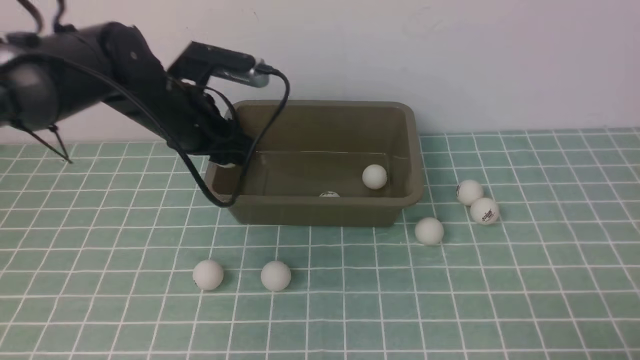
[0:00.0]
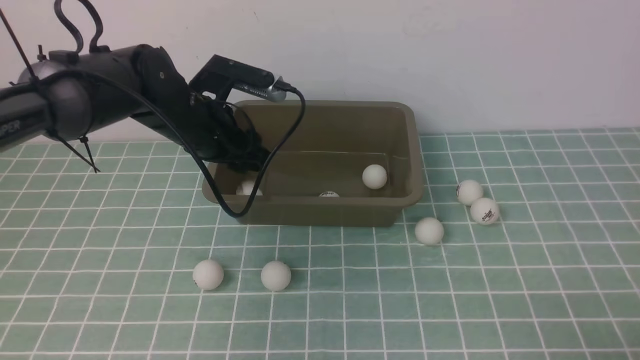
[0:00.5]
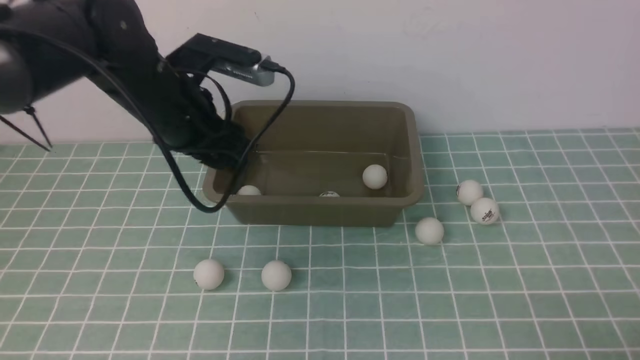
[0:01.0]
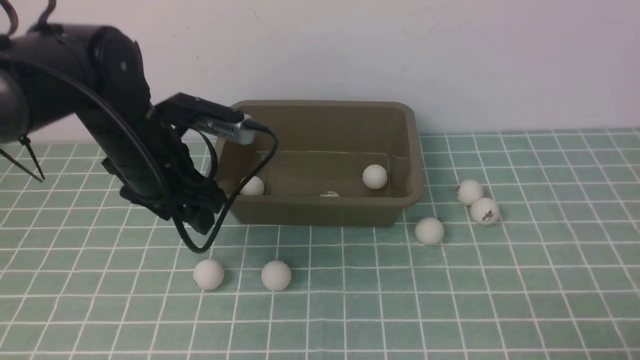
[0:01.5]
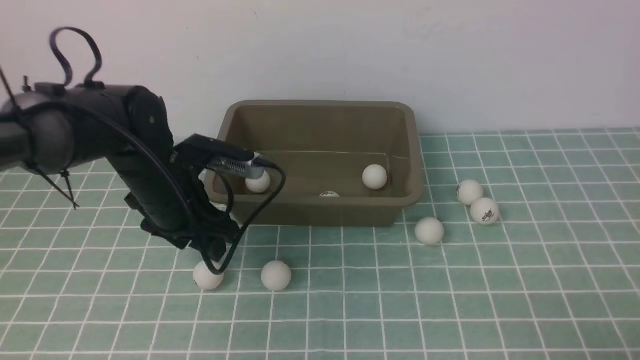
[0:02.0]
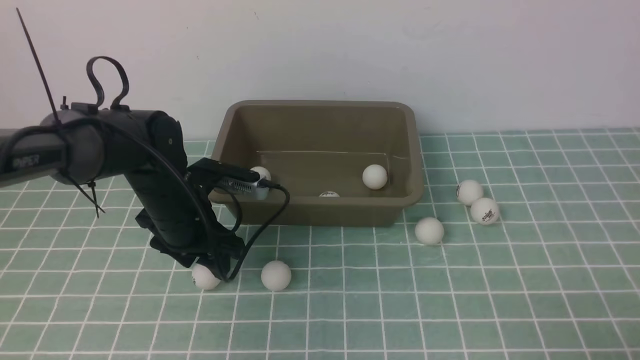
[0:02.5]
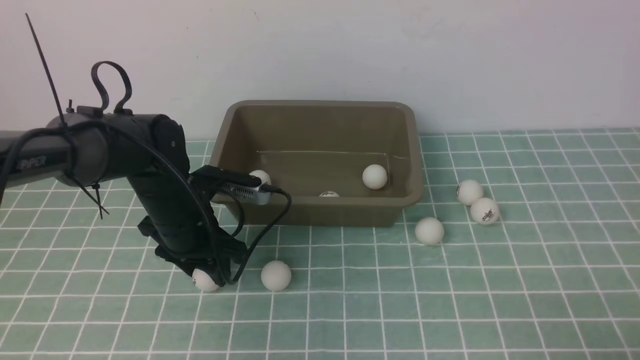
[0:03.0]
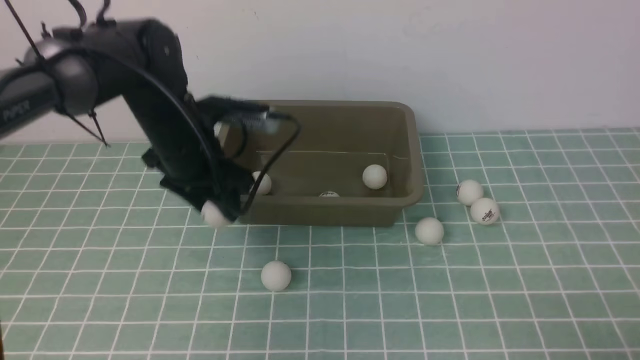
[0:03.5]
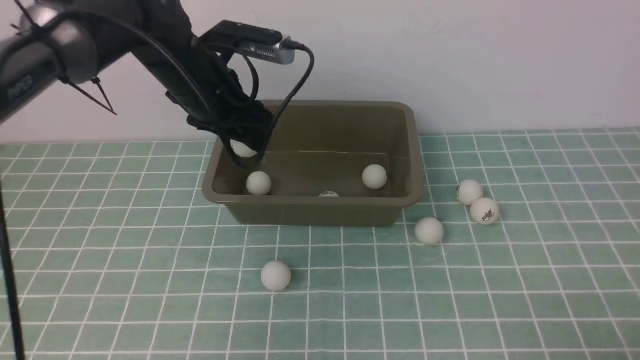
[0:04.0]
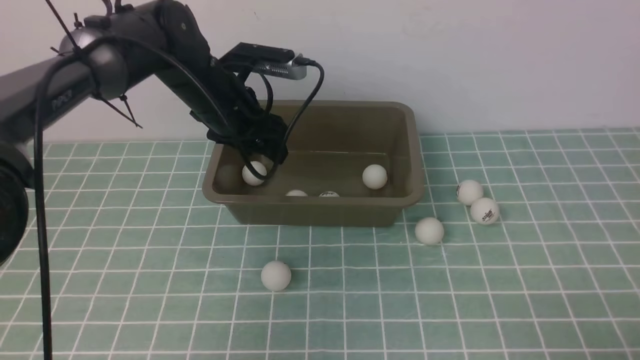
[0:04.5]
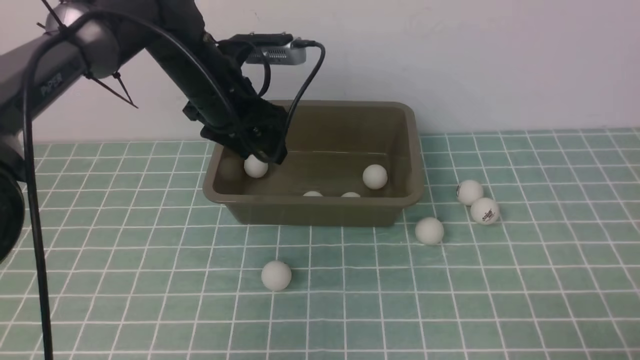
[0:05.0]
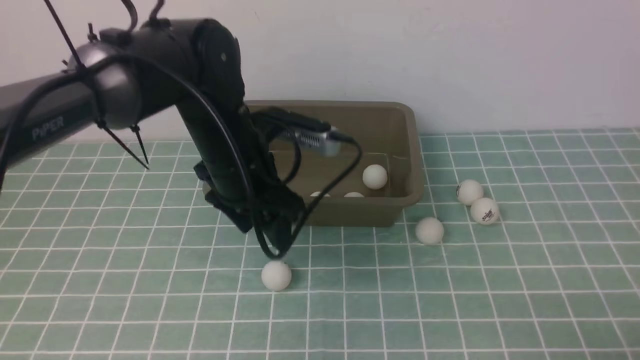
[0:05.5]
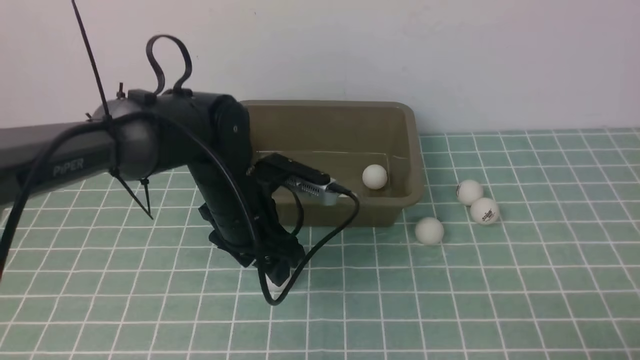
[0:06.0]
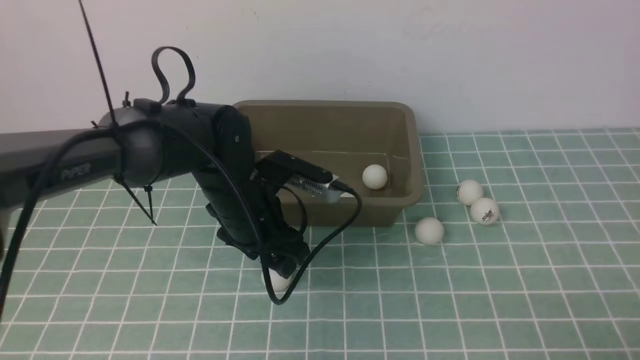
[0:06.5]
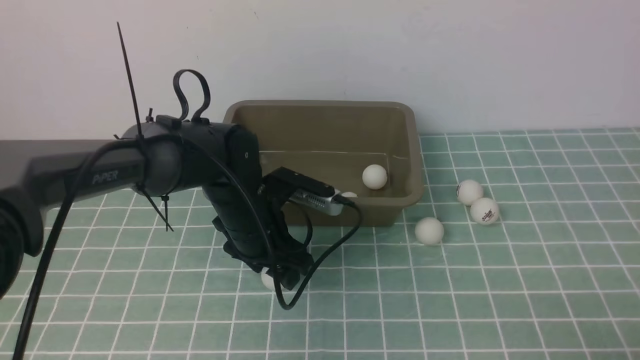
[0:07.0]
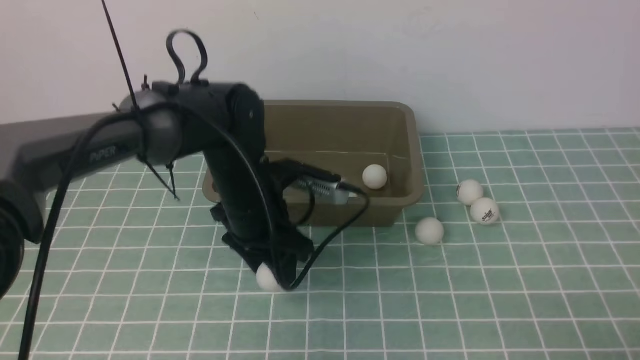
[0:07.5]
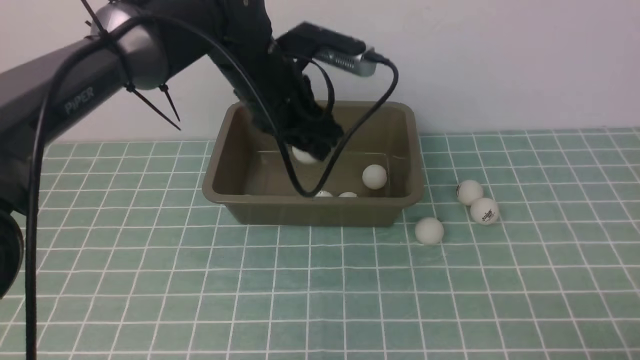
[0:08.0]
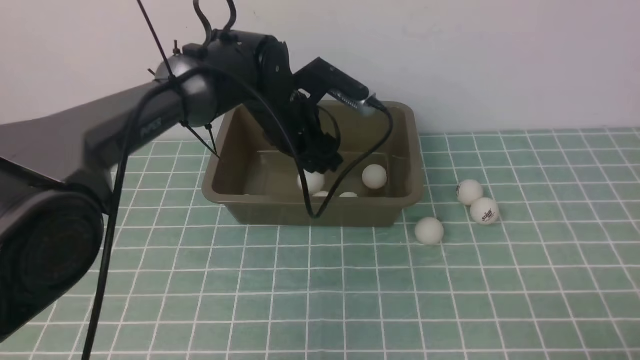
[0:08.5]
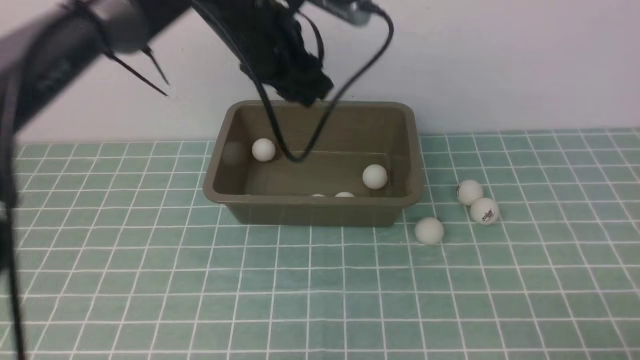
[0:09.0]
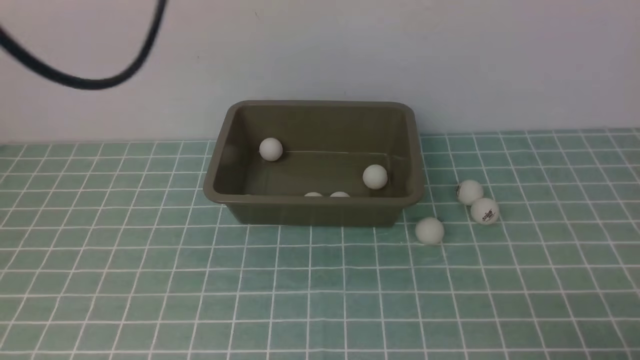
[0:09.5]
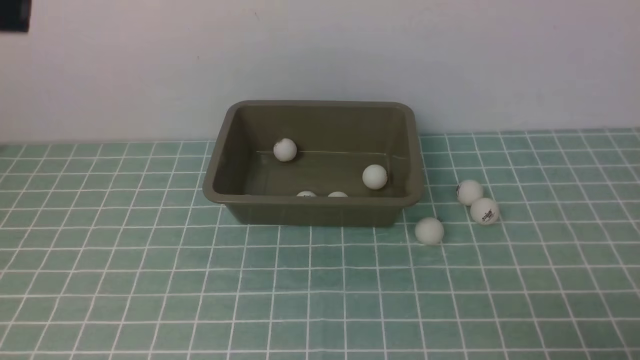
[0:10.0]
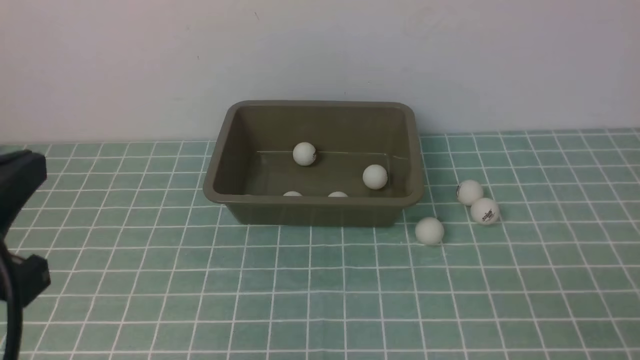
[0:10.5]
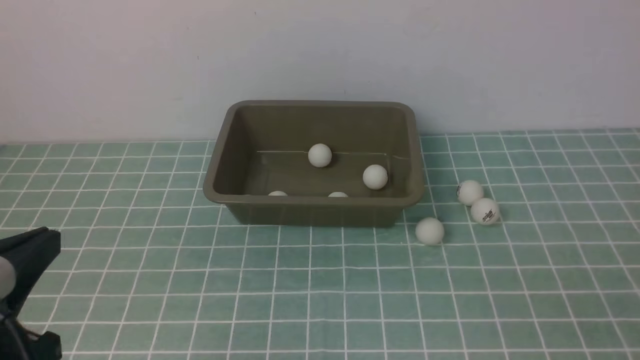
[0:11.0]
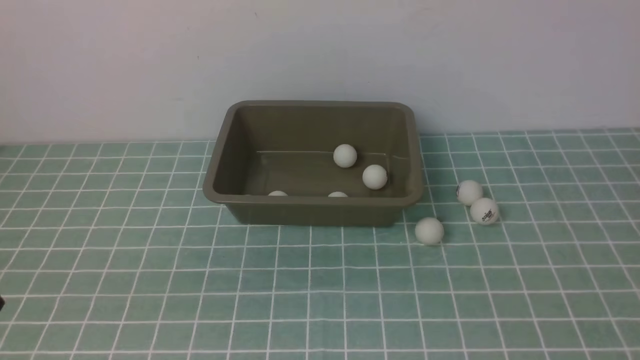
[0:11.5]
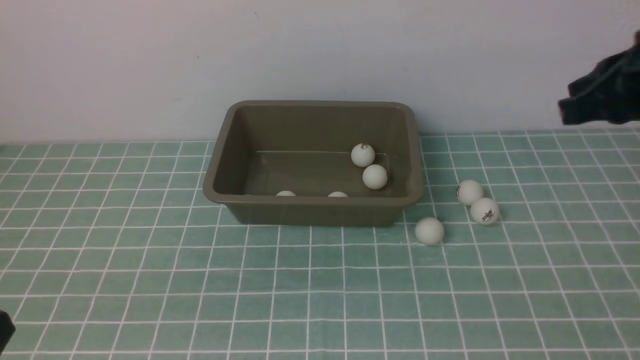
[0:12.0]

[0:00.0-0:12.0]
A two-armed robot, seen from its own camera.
Step, 0:01.0 to 0:03.0: use the left arm to clamp the table tennis ball closest to it.
Step, 0:03.5 to 0:04.5: use the left arm to put the table tennis ball into the box.
Step, 0:05.0 to 0:07.5: use the left arm to clamp the table tennis ball closest to it.
Step, 0:08.0 to 0:08.5: use the left arm to put the table tennis ball into the box.
0:00.0 to 0:02.0: The left gripper travels backward and downward by roughly 10 cm.
0:02.0 to 0:04.0: The left gripper travels forward and upward by approximately 10 cm.
0:04.0 to 0:06.0: The left gripper travels backward and downward by approximately 10 cm.
0:06.0 to 0:08.0: The left gripper moves upward and forward, some 10 cm.
0:08.0 to 0:10.0: The left gripper heads backward, upward and to the left, covering roughly 35 cm, and closes up.
0:10.0 to 0:12.0: The right gripper is displaced forward and upward by approximately 30 cm; the left gripper moves downward and backward, about 25 cm.

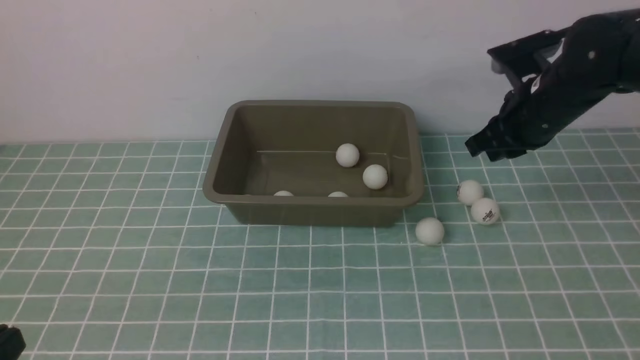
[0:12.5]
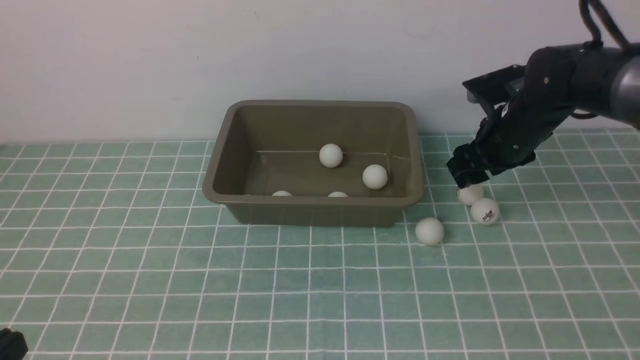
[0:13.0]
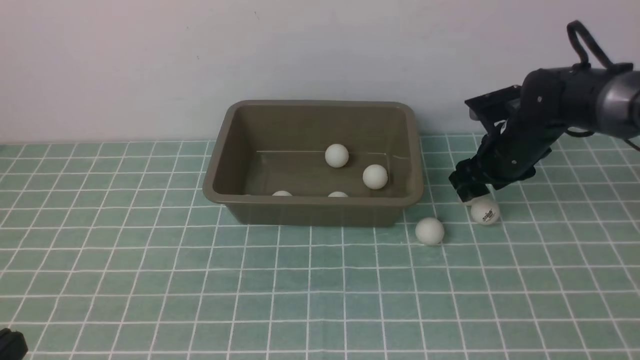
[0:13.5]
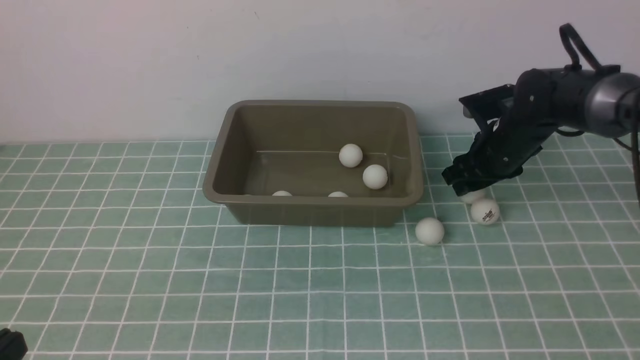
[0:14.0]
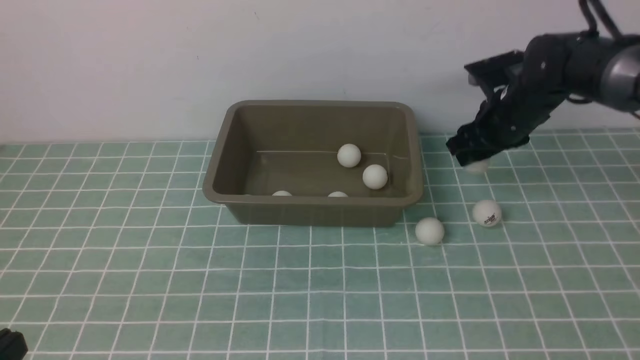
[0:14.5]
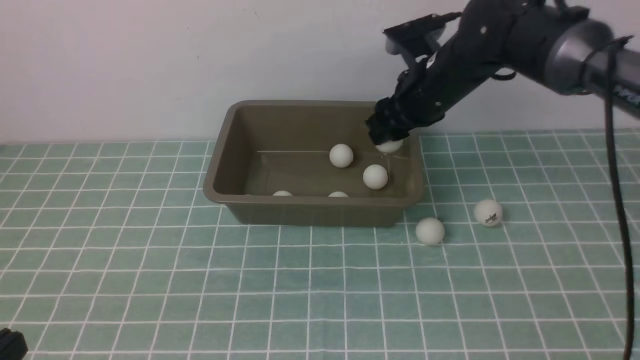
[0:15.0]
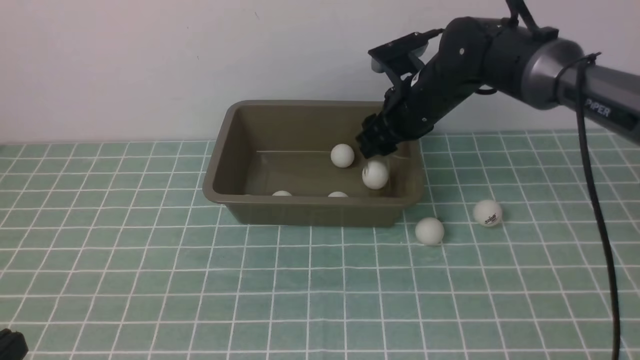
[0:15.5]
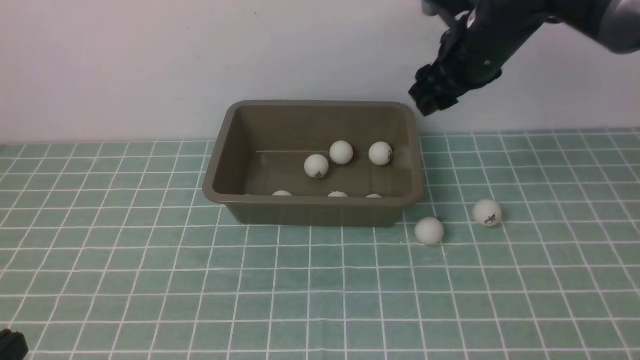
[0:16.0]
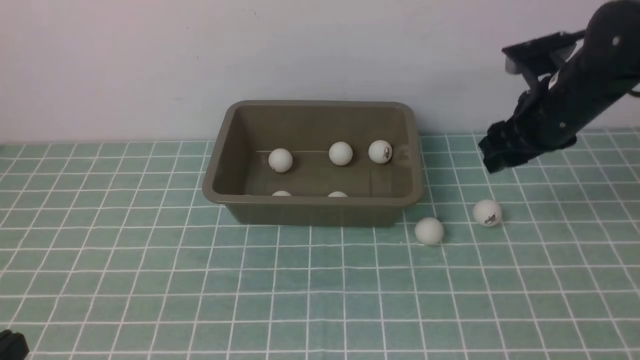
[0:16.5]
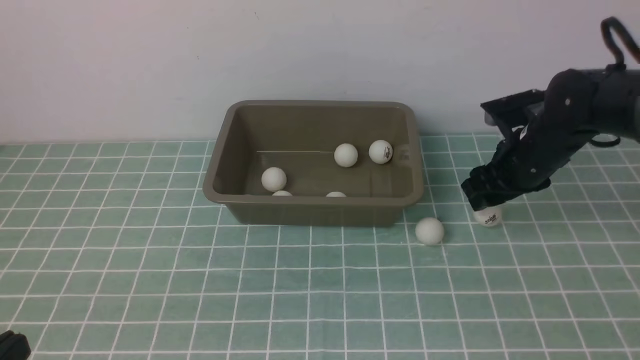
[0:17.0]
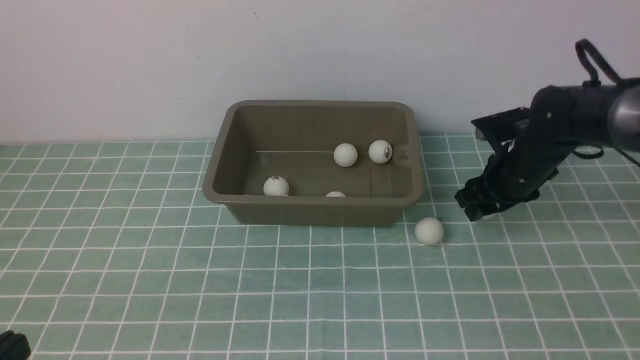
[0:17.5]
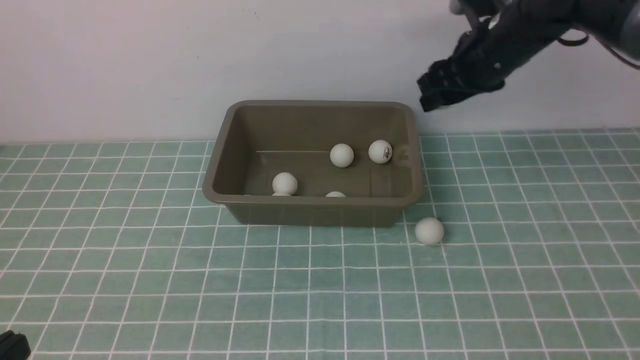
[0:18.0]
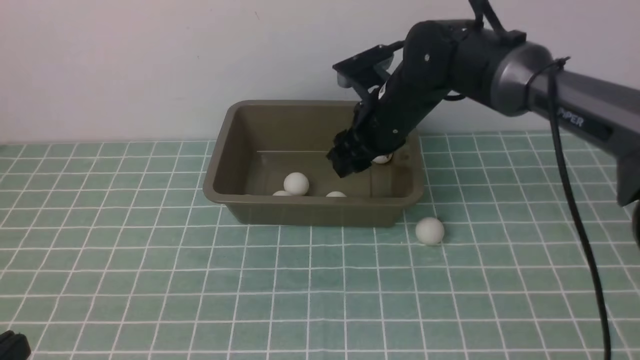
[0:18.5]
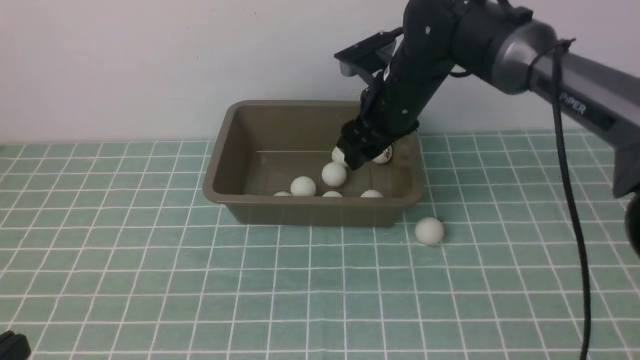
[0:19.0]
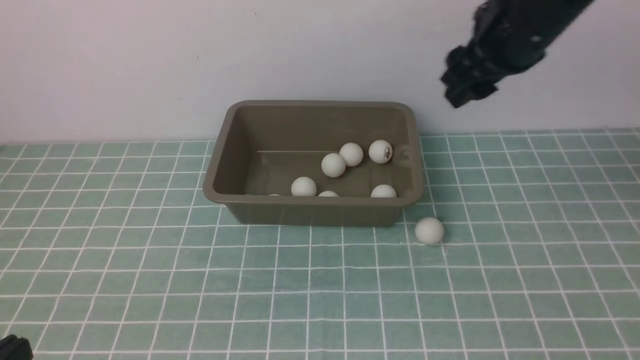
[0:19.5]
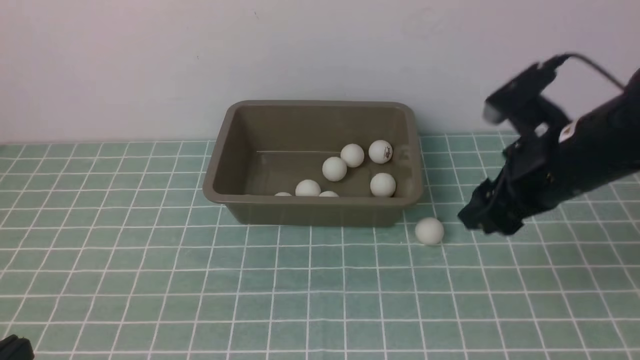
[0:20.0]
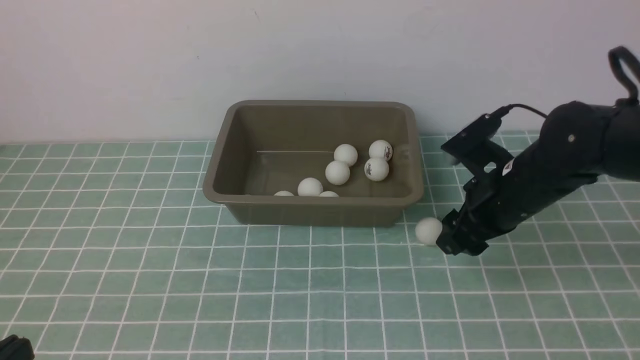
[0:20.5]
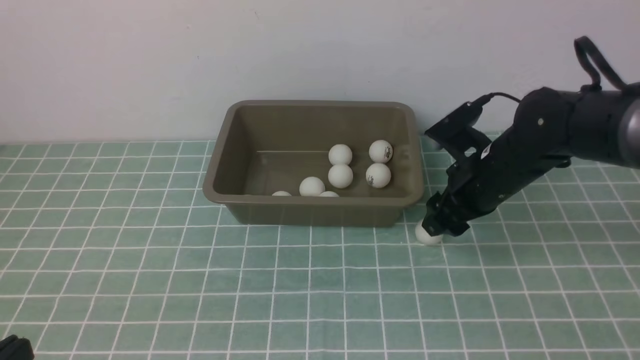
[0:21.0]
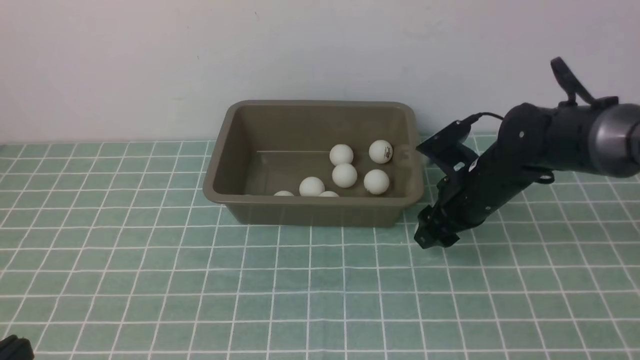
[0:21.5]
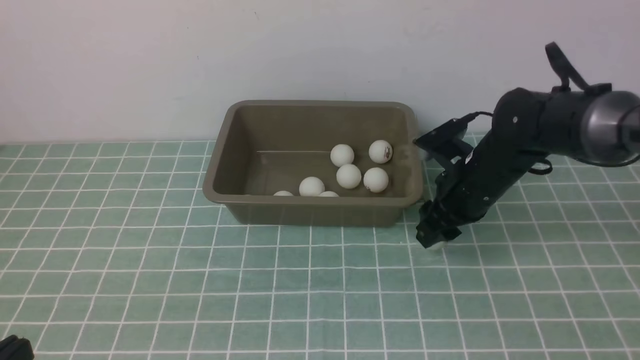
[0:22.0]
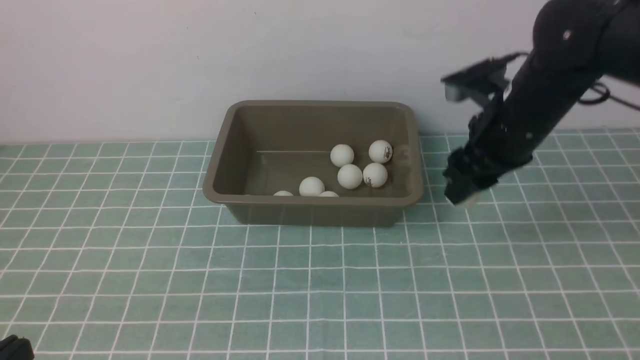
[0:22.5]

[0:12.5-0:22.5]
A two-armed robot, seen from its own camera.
Step, 0:12.5 to 0:14.5: use the right arm to clamp the table tennis ball closest to it.
Step, 0:15.0 to 0:15.5: use the right arm to put the table tennis ball into the box.
Step, 0:16.0 to 0:17.5: use the right arm to clamp the table tennis ball closest to it.
Step, 0:18.0 to 0:18.5: use the right arm to put the table tennis ball into the box.
Step, 0:19.5 to 0:22.5: use the right arm to clamp the table tennis ball closest to it.
0:12.5 to 0:14.5: The right gripper is displaced forward by approximately 5 cm, and opens up.
0:14.5 to 0:16.5: The right gripper goes about 5 cm backward, and travels to the left and back again, roughly 10 cm each way.
0:16.5 to 0:18.5: The right gripper shifts some 15 cm to the left.
0:18.5 to 0:20.5: The right gripper shifts some 15 cm to the right, downward and backward.
0:20.5 to 0:22.5: The right gripper heads upward, to the left and forward, covering roughly 10 cm.
